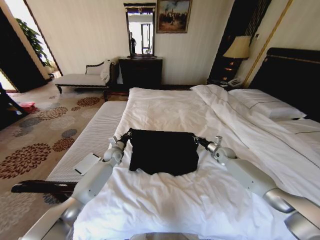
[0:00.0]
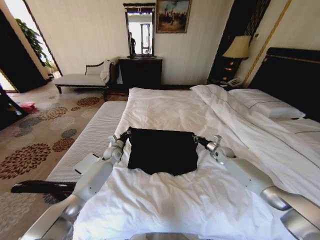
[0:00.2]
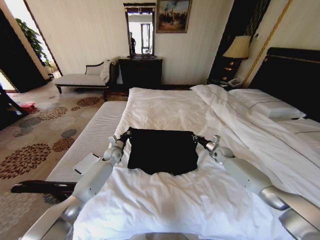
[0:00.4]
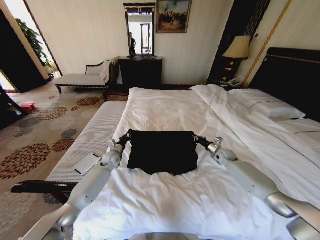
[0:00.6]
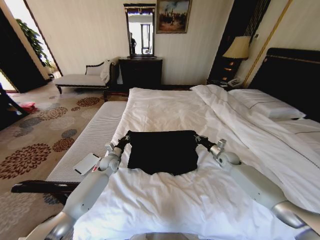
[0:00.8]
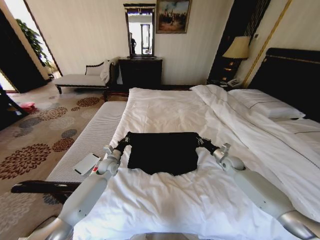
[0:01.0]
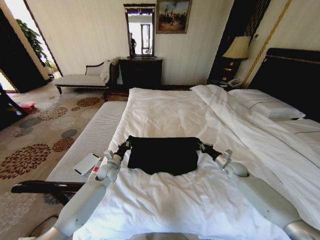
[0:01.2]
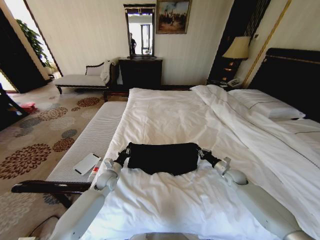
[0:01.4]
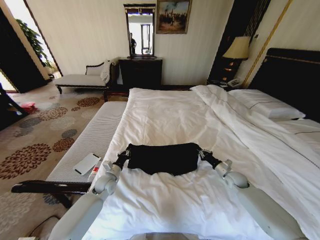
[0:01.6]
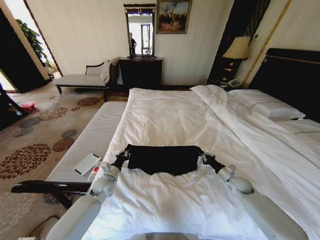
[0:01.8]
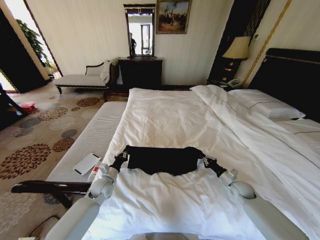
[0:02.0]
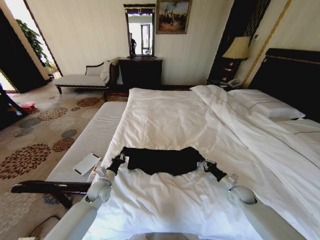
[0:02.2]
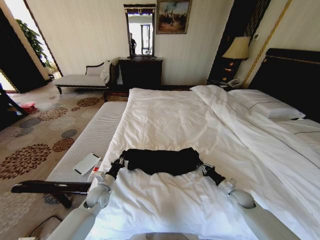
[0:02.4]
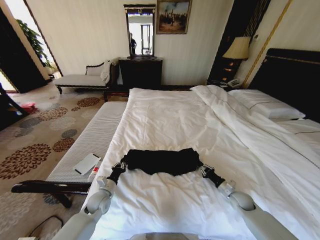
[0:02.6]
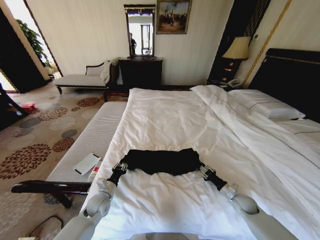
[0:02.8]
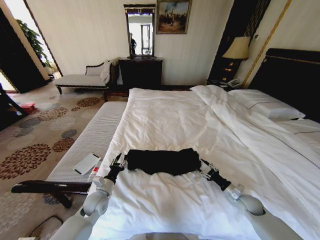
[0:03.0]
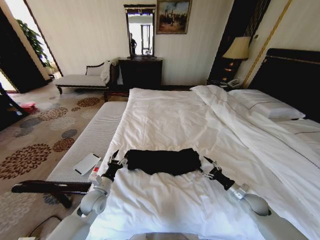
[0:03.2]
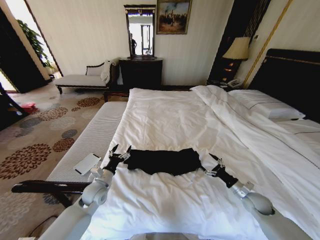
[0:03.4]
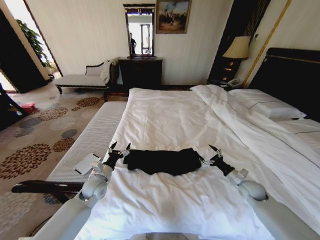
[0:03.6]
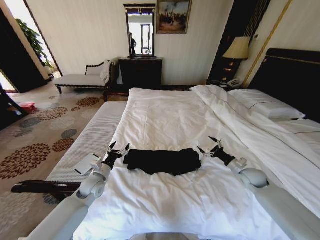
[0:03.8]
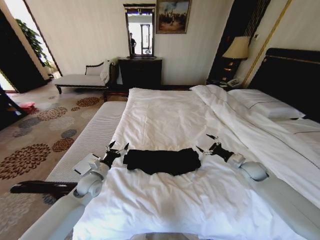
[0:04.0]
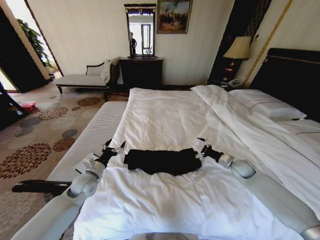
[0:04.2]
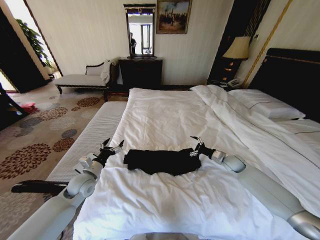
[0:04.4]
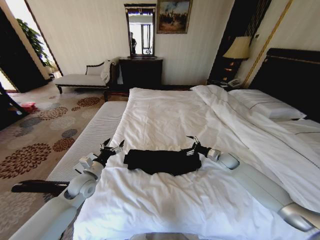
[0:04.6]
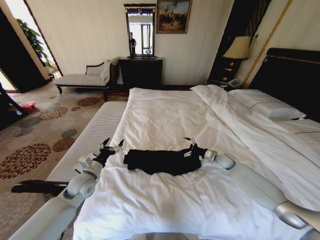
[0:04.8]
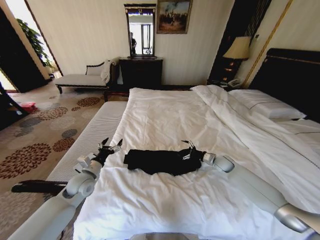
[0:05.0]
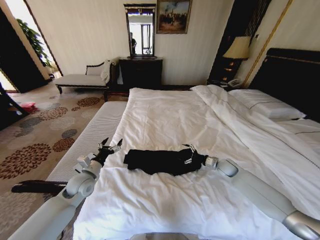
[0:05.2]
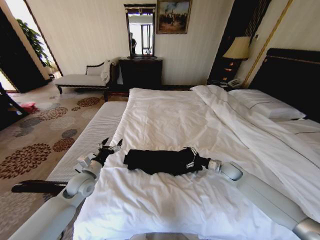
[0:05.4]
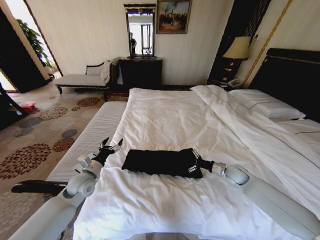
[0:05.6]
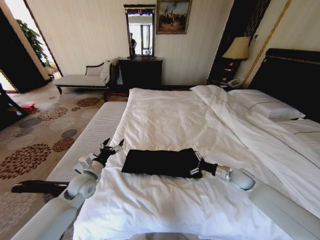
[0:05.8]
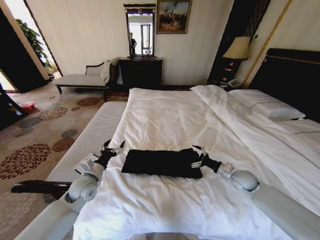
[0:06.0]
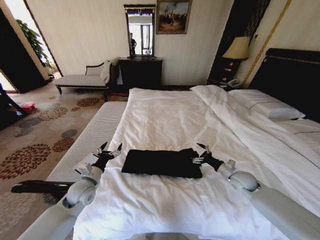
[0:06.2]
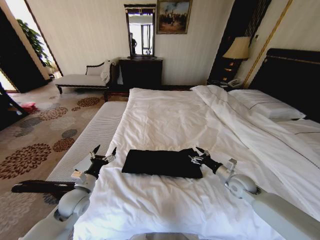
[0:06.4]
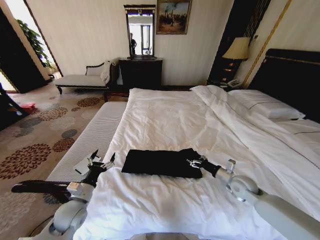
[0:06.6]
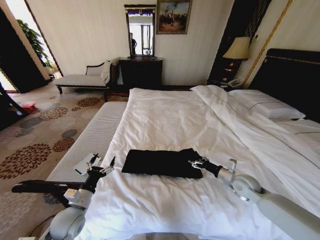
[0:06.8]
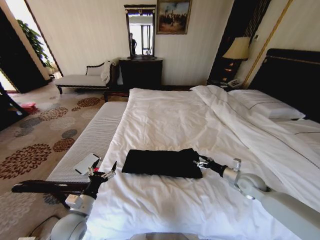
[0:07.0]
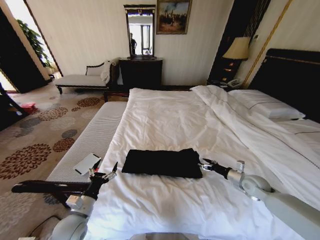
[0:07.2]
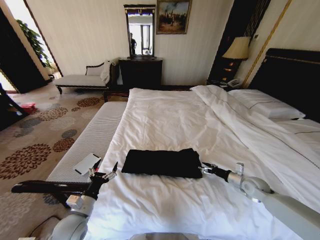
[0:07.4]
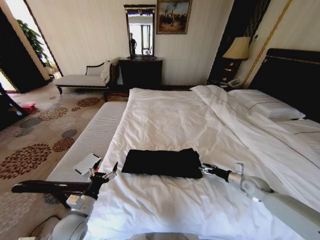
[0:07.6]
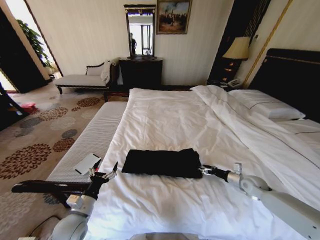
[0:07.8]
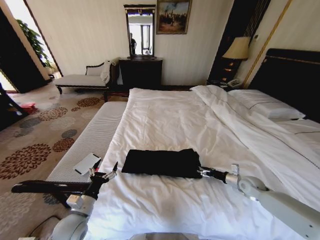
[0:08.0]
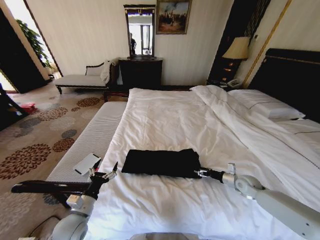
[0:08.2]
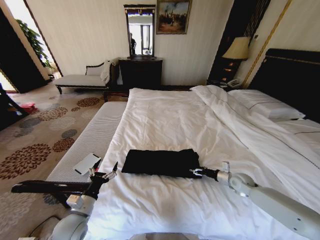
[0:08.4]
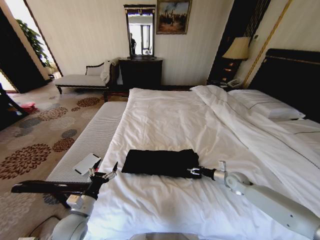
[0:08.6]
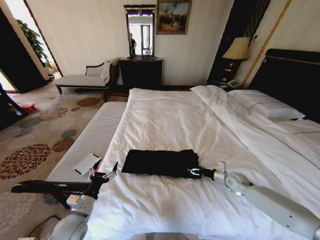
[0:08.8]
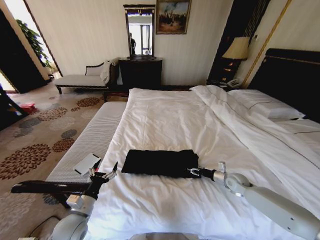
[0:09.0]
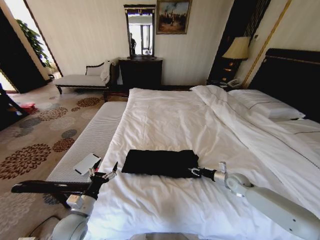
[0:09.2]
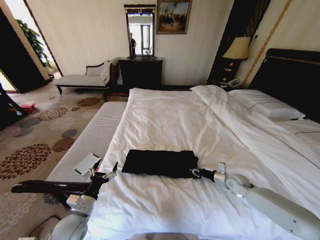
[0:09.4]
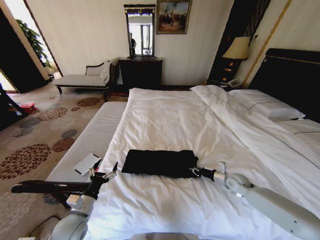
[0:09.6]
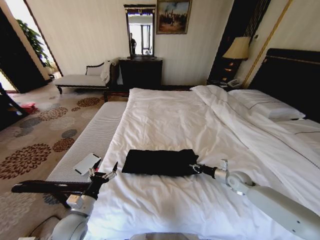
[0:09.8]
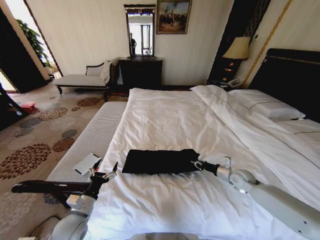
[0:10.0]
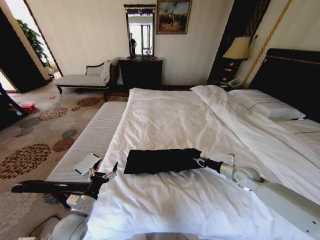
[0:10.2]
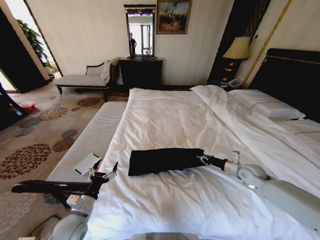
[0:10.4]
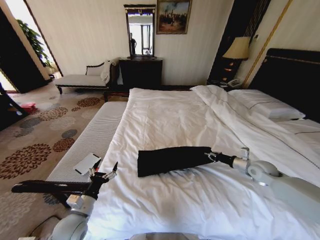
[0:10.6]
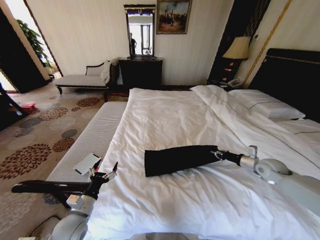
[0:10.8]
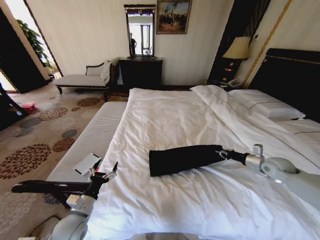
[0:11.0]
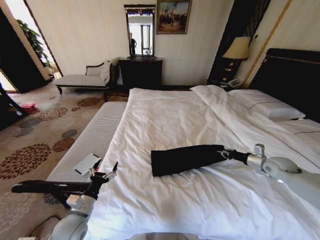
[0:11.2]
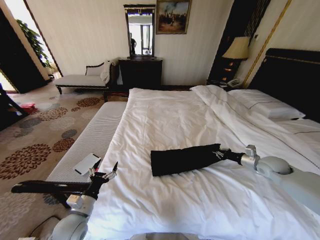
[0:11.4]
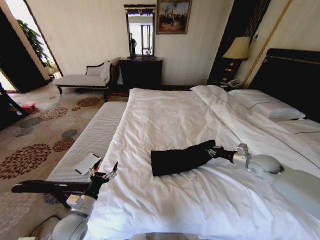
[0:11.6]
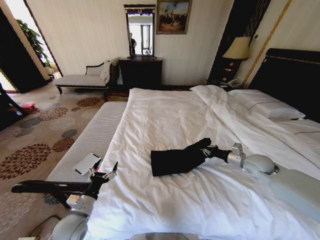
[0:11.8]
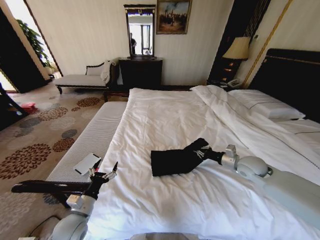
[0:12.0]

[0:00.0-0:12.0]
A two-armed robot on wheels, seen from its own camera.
Task of the whole recording: Fold the clothes on the bed.
0:00.0 to 0:01.6: The two grippers go approximately 15 cm backward.
0:01.6 to 0:03.0: The grippers both shift backward by some 10 cm. The right gripper opens its fingers, while the left gripper opens its fingers.
0:03.0 to 0:04.4: The right gripper travels forward and upward by roughly 20 cm, and opens up. The left gripper shifts roughly 10 cm upward, and opens its fingers.
0:04.4 to 0:06.0: The right gripper moves backward, approximately 10 cm.
0:06.0 to 0:07.6: The right gripper shifts roughly 5 cm to the right. The left gripper is displaced backward by roughly 10 cm.
0:07.6 to 0:09.0: The right gripper goes some 5 cm to the left.
0:09.0 to 0:10.4: The right gripper travels upward by about 10 cm, and closes up.
0:10.4 to 0:12.0: The right gripper heads upward and to the left, covering roughly 10 cm.

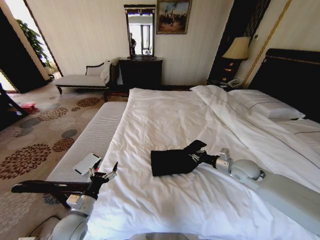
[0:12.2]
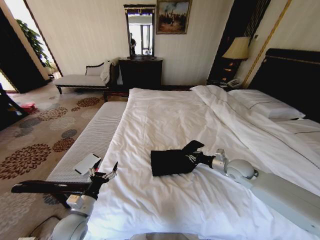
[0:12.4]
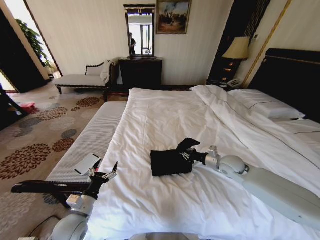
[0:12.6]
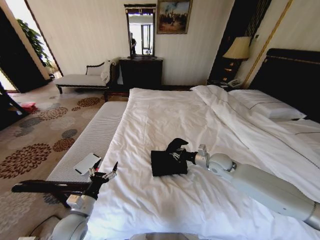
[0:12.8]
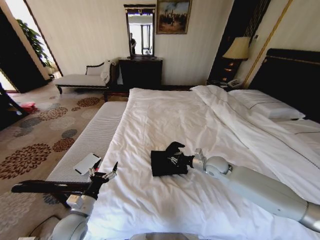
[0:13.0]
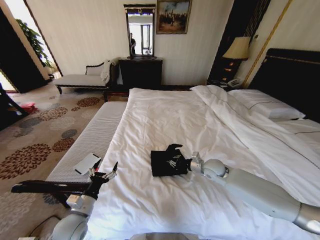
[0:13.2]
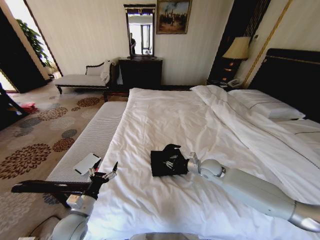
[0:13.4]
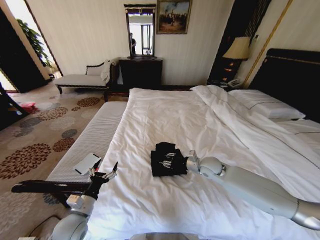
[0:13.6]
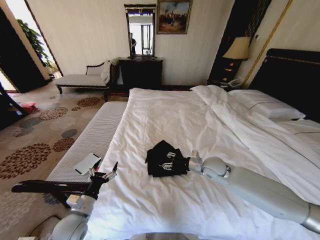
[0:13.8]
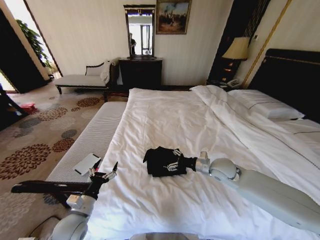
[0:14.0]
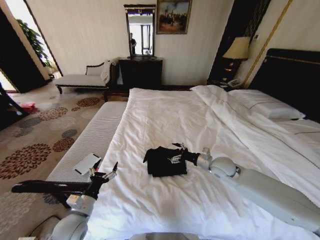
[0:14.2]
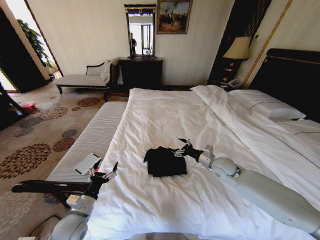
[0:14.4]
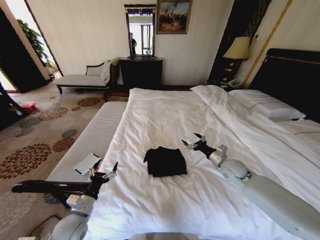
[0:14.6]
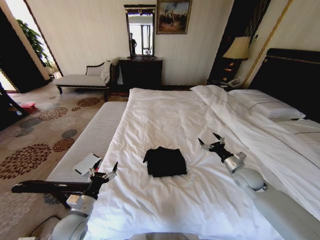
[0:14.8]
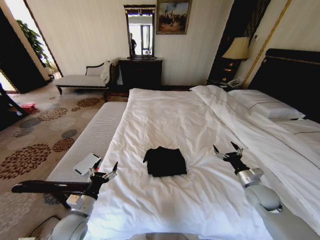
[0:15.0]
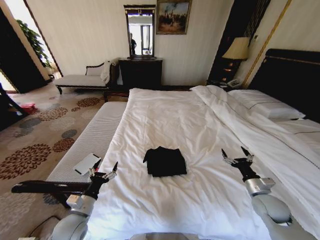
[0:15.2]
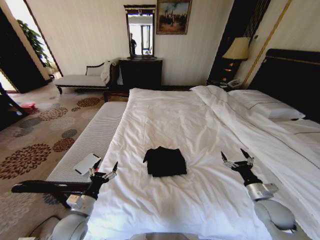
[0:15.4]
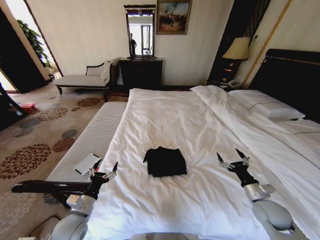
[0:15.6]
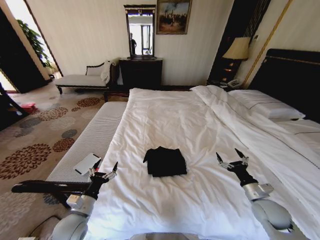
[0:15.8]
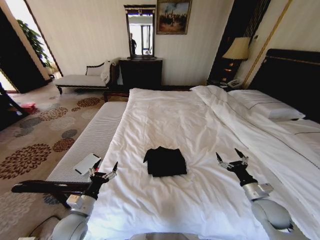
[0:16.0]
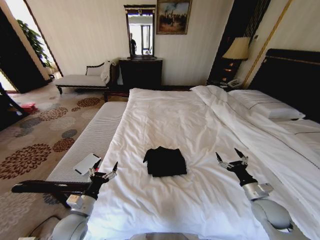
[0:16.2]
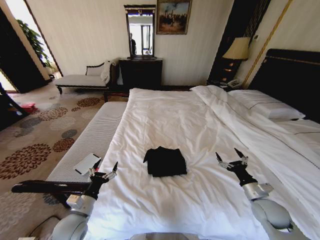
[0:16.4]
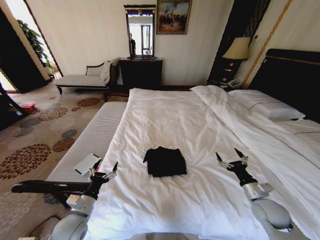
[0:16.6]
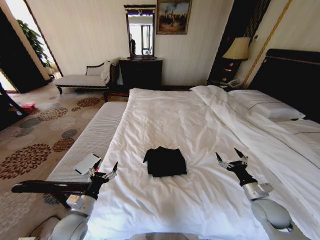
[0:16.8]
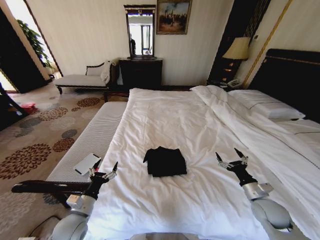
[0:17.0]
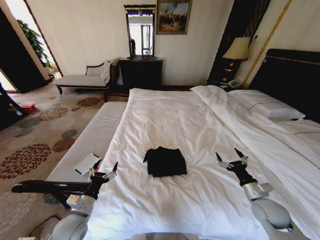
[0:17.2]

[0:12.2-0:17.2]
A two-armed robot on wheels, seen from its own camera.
Task of the whole recording: Fold the clothes on the bed.
0:12.2 to 0:13.8: The right gripper travels to the left by roughly 10 cm, and opens up.
0:13.8 to 0:15.6: The right gripper heads to the right and backward, covering some 25 cm, and opens up.
0:15.6 to 0:17.2: Both grippers stay about where they are.

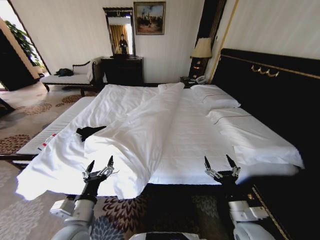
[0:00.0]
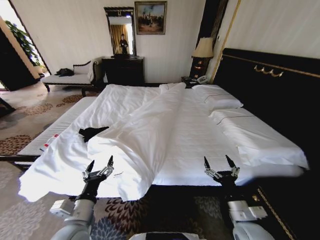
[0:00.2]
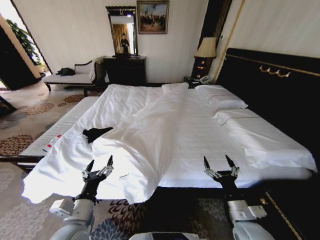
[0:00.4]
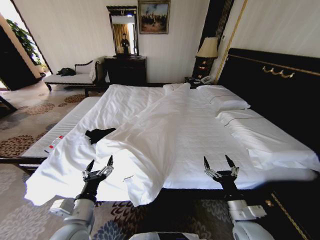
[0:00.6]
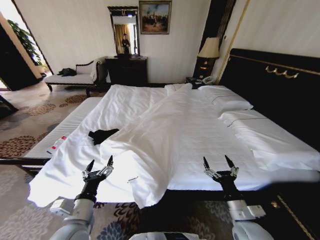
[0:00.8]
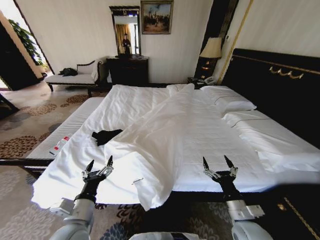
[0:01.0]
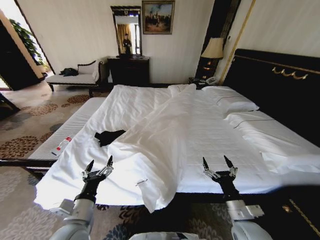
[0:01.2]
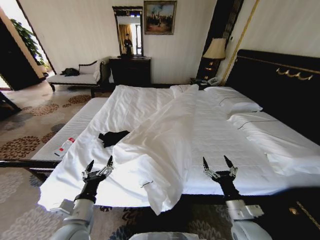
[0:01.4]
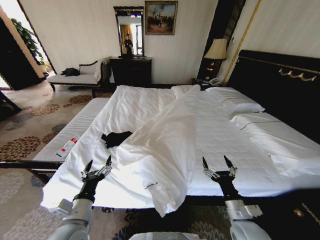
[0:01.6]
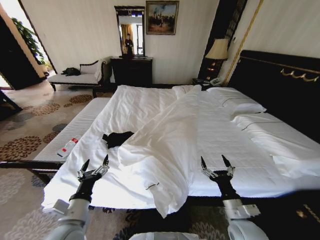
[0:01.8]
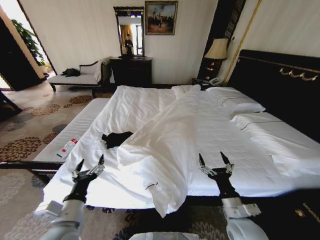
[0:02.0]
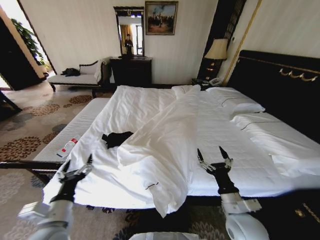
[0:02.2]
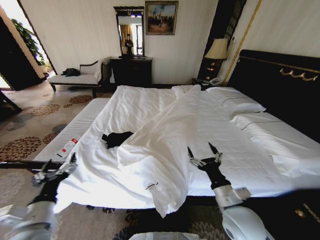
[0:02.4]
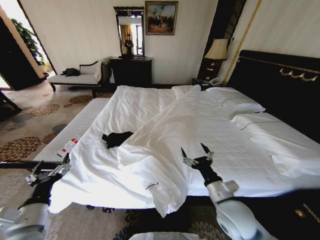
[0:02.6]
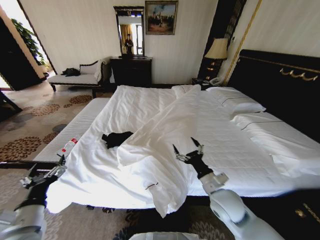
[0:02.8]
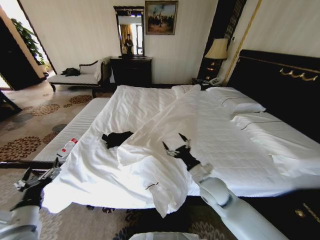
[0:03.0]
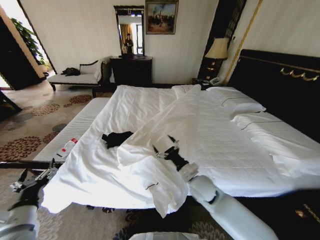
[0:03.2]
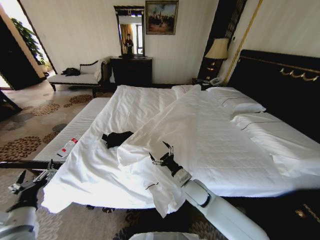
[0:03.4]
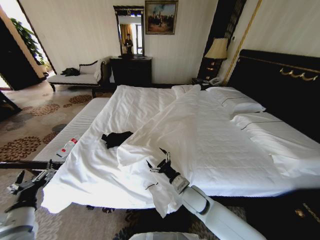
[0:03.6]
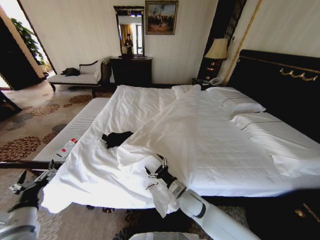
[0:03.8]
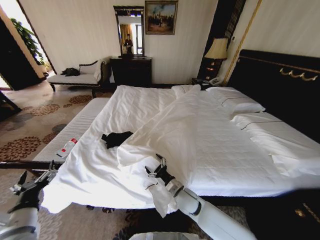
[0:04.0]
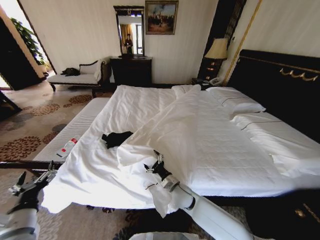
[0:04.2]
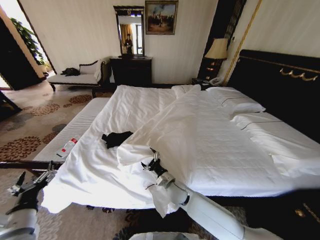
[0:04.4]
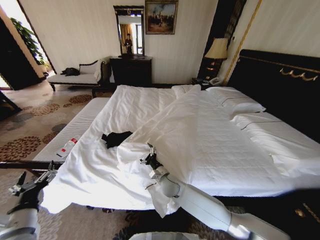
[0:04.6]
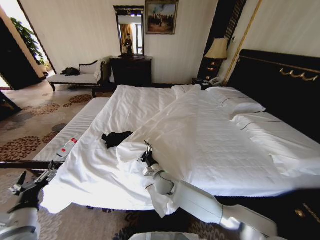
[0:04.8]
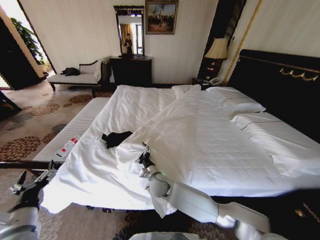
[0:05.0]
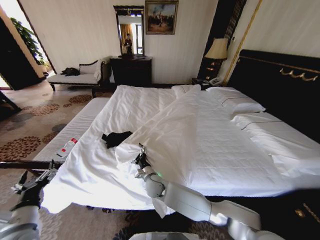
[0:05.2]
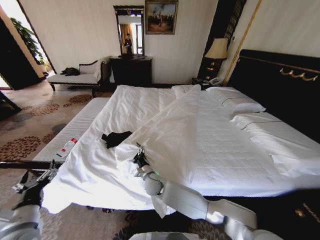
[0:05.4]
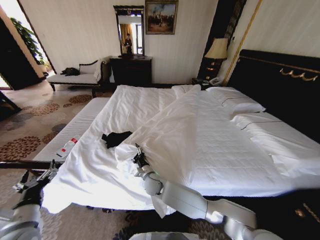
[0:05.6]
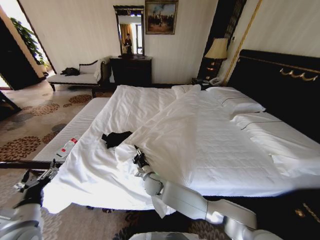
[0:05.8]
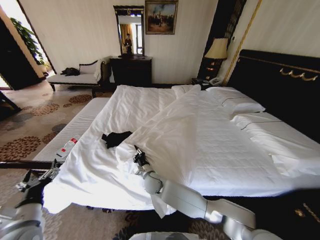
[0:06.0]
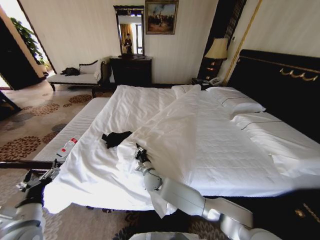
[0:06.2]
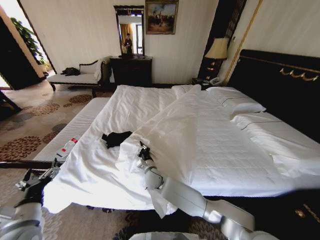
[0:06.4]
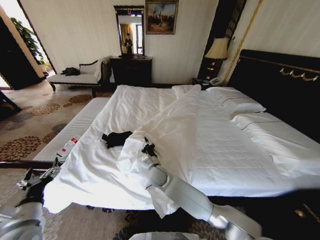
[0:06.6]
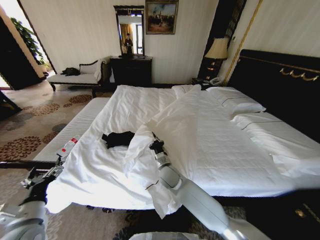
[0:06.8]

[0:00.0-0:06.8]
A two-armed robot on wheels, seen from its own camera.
Task of the whole recording: Fold the clothes on the bed.
0:01.4 to 0:02.8: The left gripper travels to the left by roughly 10 cm. The right gripper shifts about 10 cm forward, to the left and upward.
0:02.8 to 0:04.0: The right gripper moves downward and to the left, approximately 15 cm.
0:04.0 to 0:05.4: The right gripper goes approximately 15 cm to the left and forward.
0:05.4 to 0:06.8: The right gripper goes roughly 10 cm to the right and upward, and closes up.
